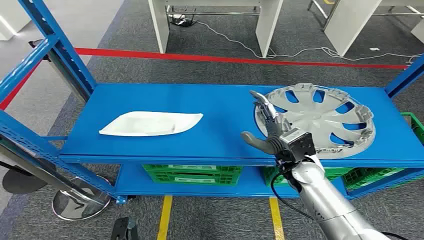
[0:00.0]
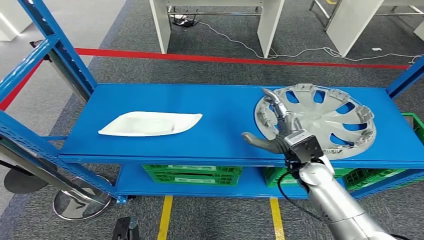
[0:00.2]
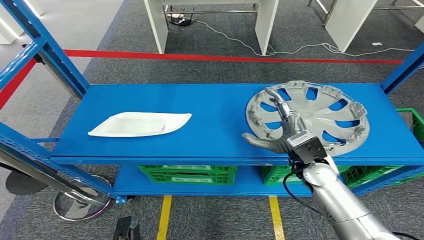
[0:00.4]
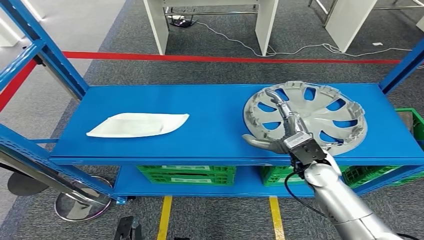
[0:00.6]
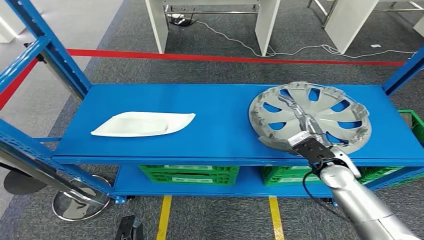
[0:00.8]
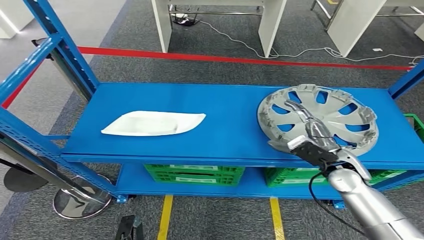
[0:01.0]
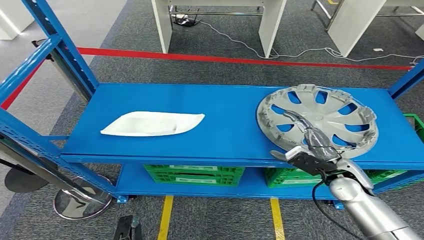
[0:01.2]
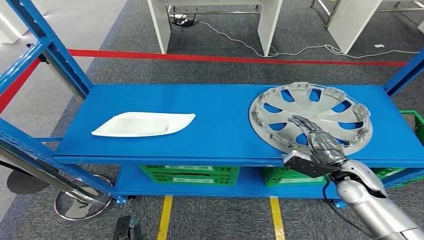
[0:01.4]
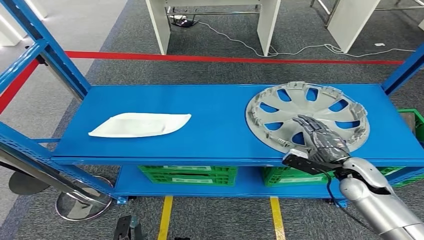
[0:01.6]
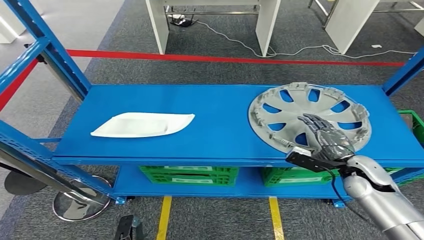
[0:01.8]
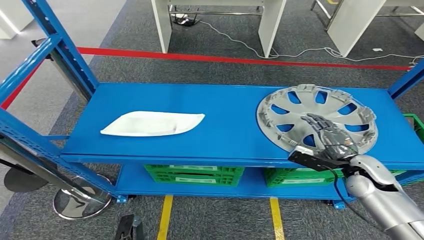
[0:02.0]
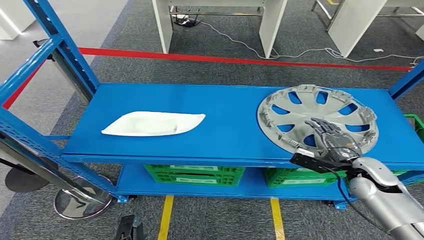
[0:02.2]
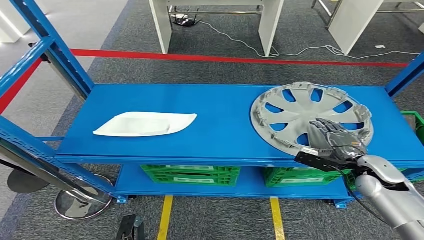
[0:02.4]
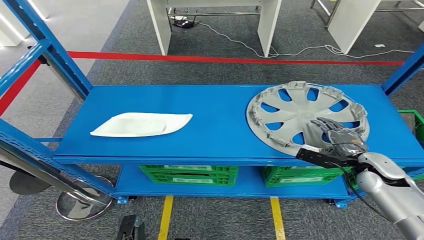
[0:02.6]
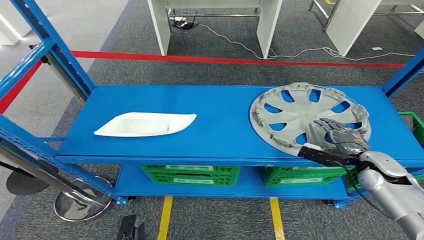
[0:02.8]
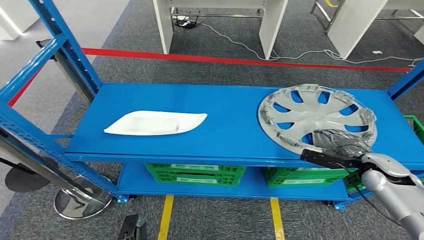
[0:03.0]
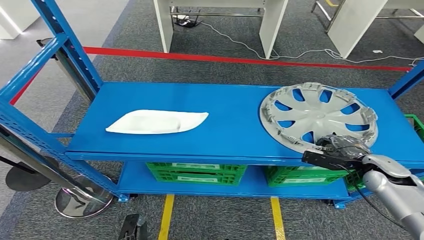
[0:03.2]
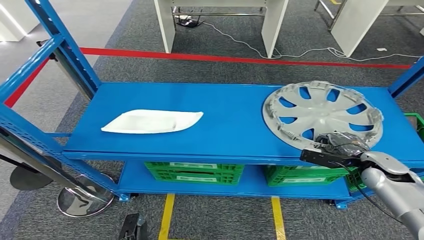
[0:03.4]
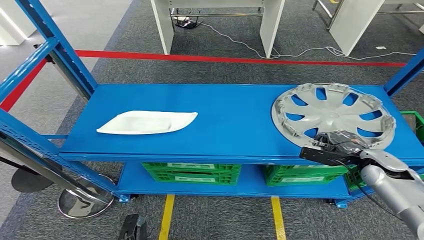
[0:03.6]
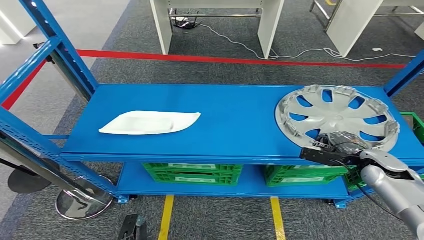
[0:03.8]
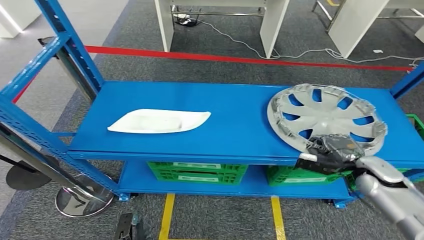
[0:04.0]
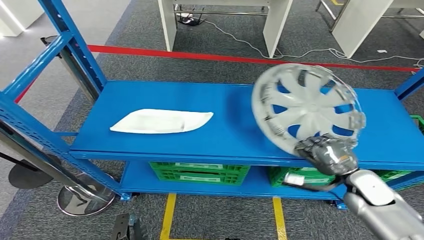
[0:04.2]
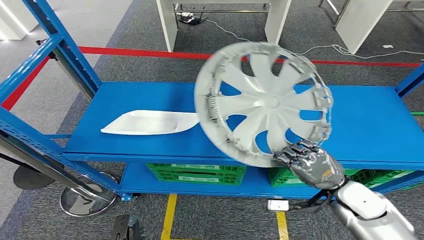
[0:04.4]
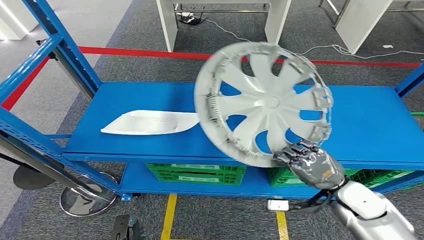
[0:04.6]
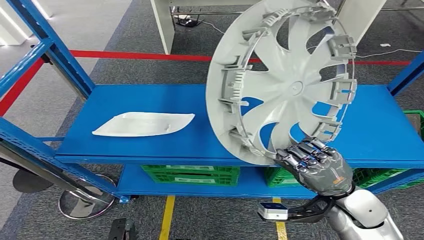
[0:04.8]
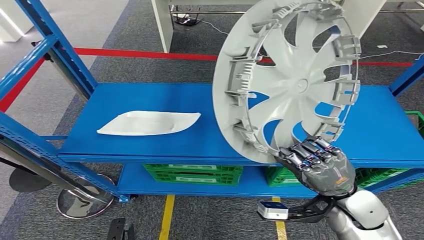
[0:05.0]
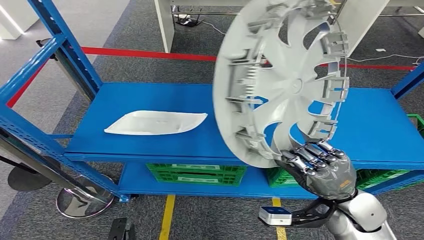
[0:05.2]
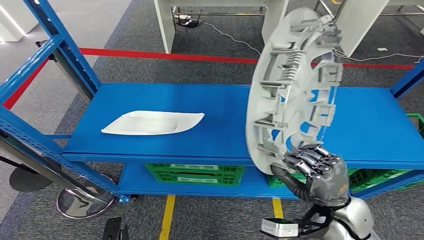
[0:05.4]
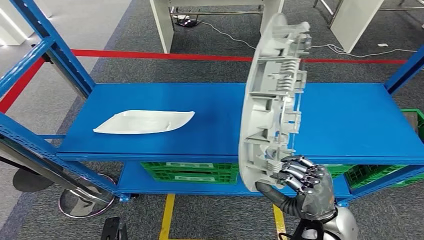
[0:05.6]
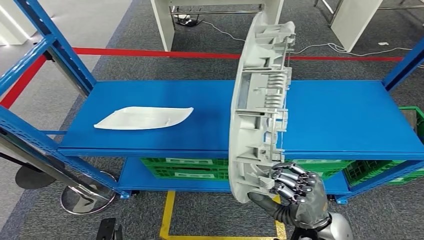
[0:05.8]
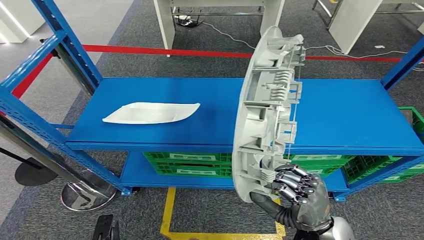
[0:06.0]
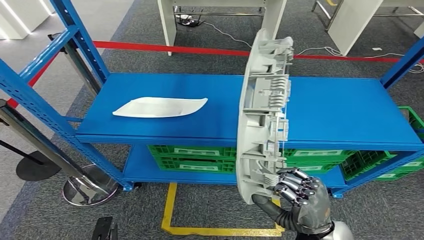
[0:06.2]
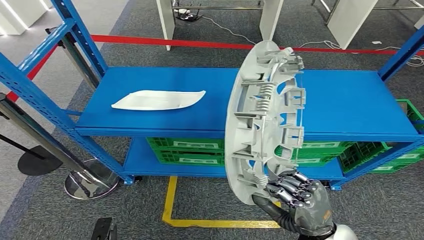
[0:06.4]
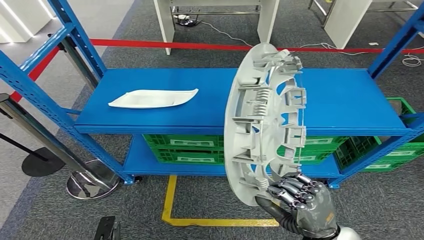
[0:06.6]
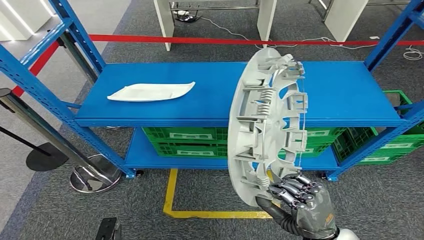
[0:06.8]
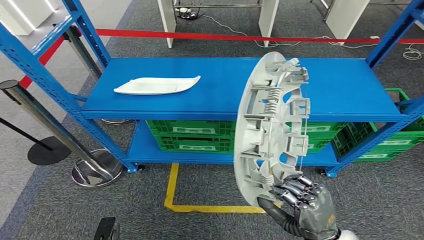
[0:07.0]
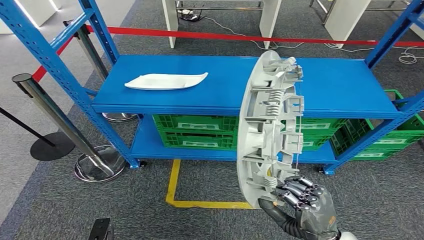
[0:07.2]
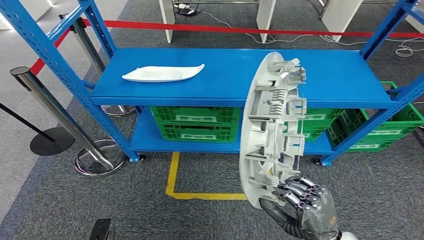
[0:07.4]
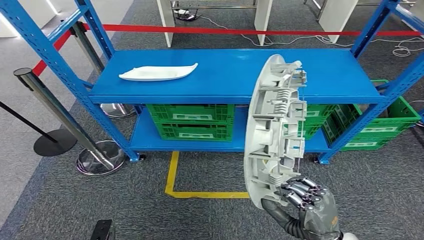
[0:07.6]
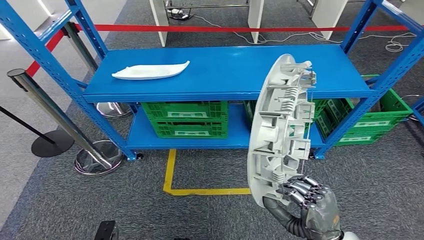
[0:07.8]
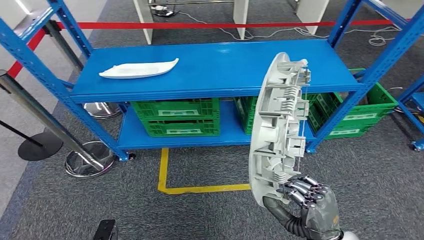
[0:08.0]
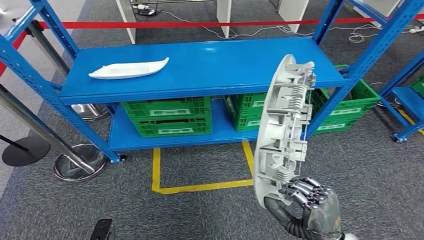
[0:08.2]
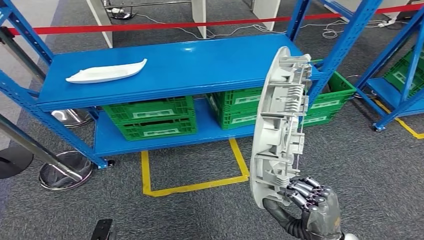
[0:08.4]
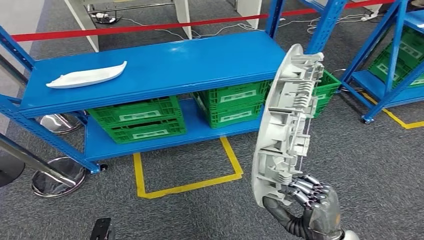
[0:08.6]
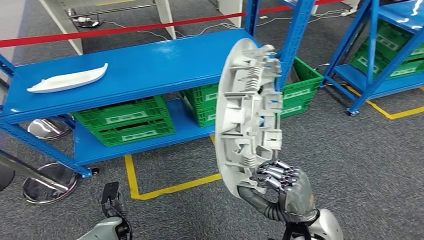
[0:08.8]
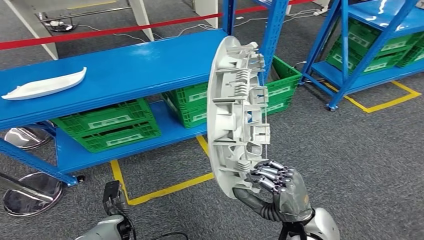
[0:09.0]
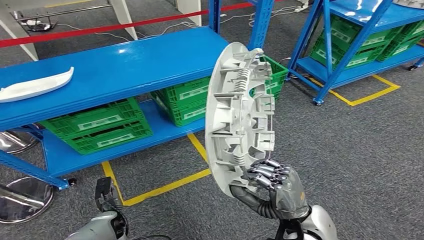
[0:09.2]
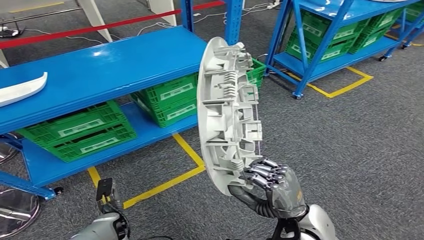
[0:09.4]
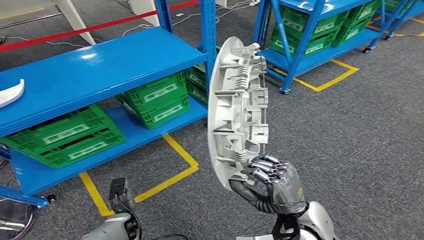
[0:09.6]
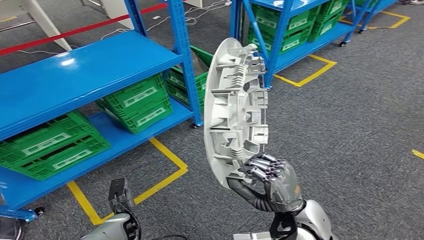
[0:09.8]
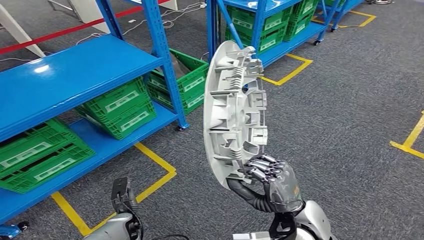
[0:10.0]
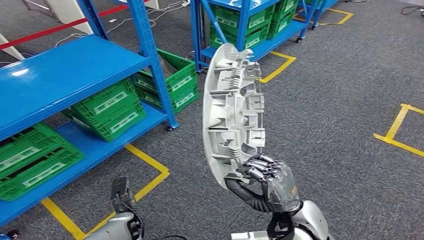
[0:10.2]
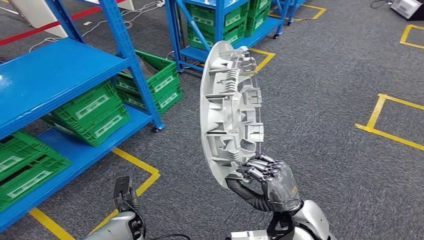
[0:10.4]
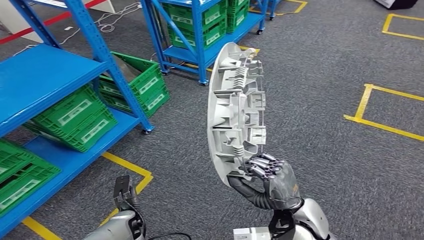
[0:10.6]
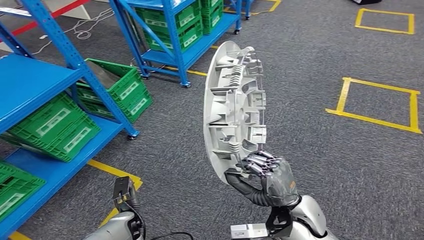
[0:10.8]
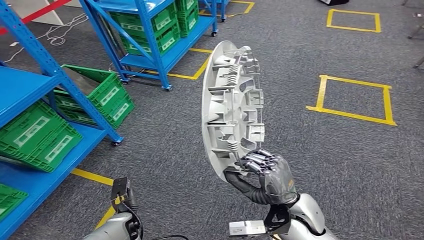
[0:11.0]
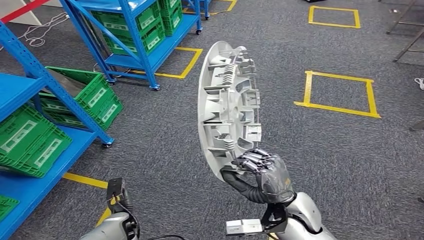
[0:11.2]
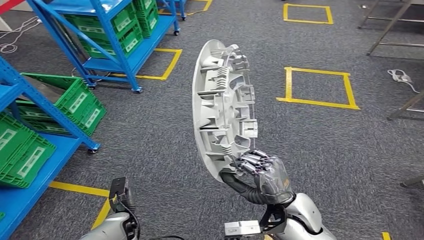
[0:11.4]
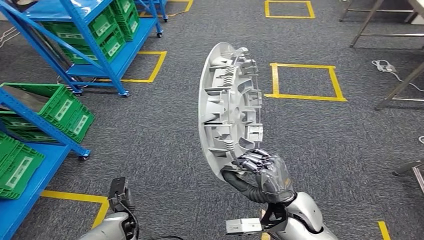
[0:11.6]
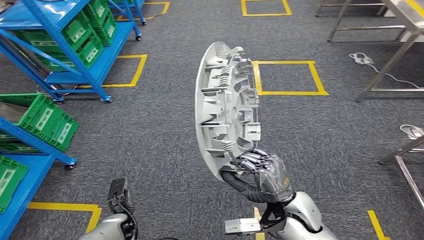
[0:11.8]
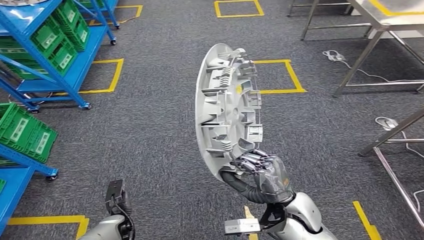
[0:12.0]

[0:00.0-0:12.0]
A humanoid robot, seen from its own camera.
Step, 0:00.0 to 0:05.0: Pick up the small component from the shelf.

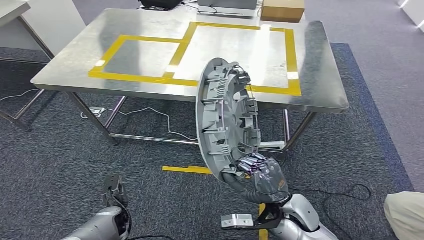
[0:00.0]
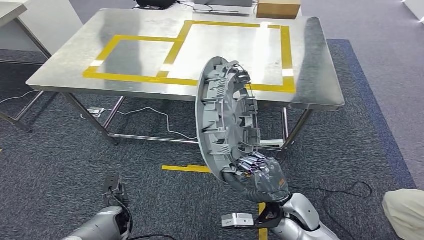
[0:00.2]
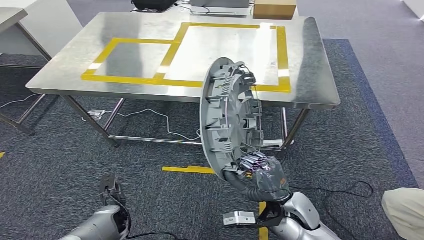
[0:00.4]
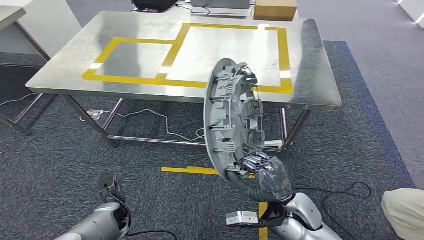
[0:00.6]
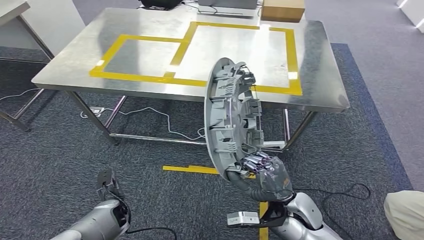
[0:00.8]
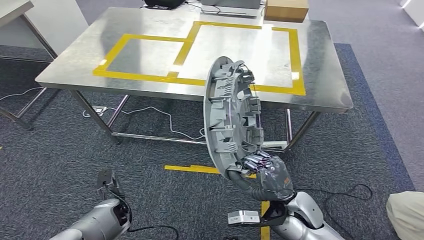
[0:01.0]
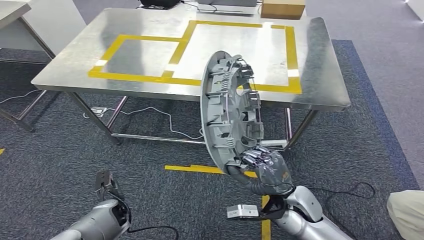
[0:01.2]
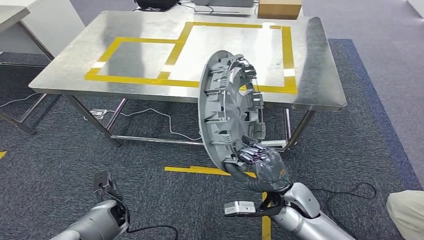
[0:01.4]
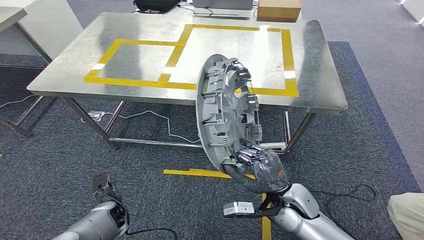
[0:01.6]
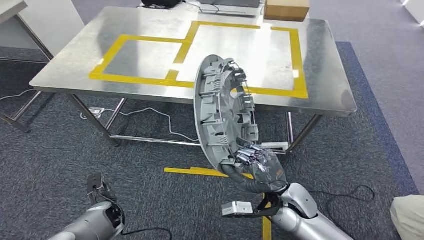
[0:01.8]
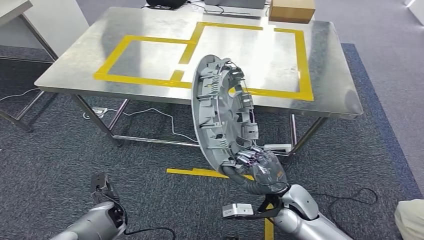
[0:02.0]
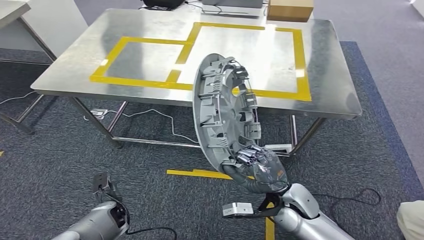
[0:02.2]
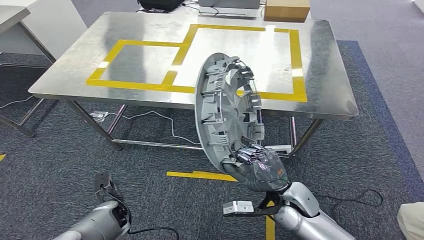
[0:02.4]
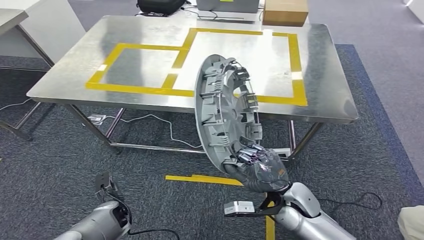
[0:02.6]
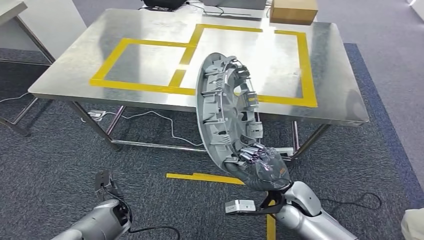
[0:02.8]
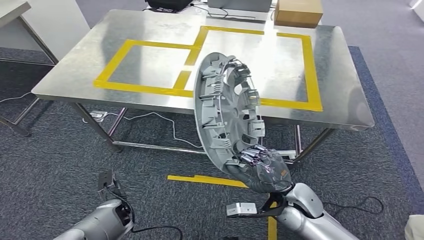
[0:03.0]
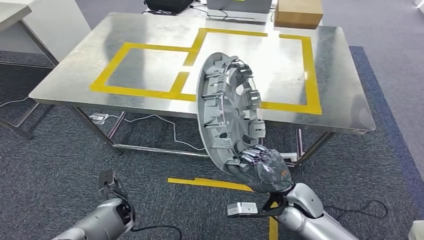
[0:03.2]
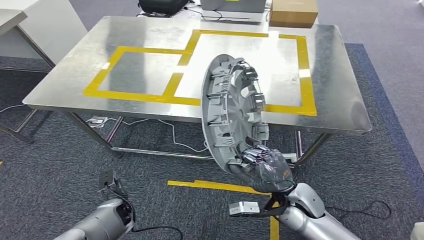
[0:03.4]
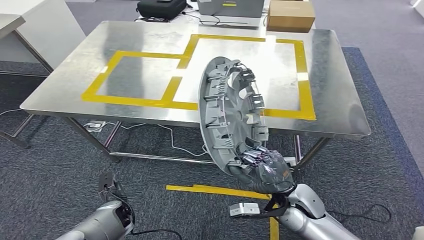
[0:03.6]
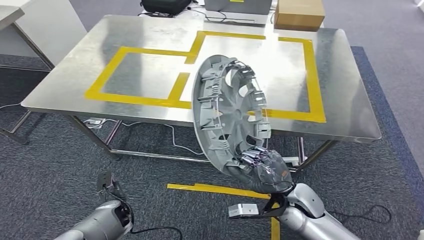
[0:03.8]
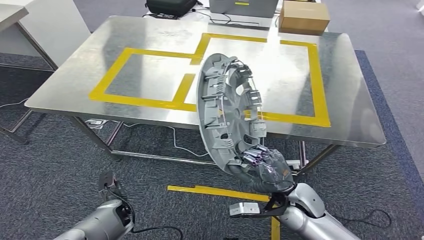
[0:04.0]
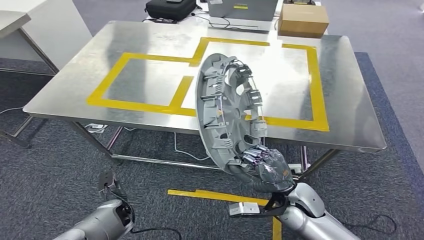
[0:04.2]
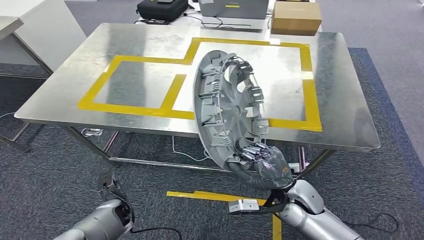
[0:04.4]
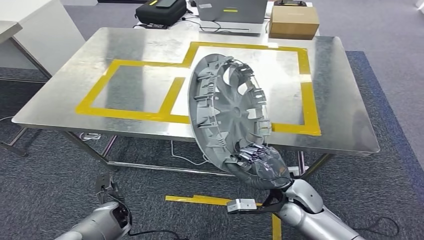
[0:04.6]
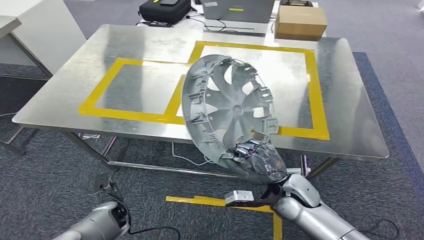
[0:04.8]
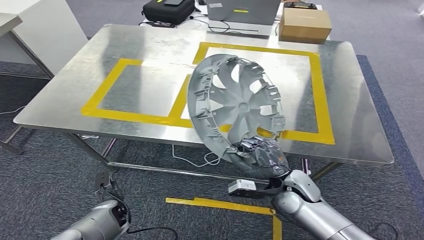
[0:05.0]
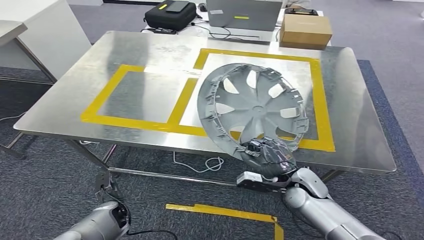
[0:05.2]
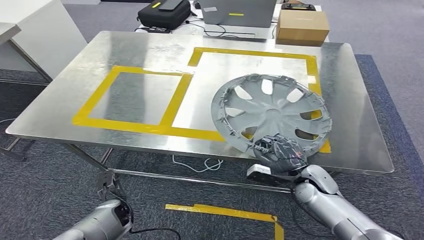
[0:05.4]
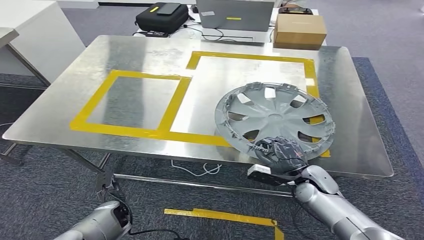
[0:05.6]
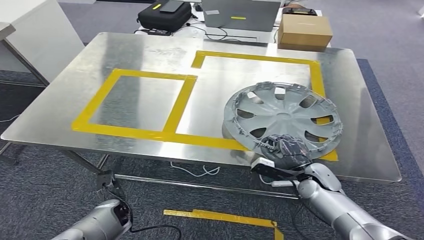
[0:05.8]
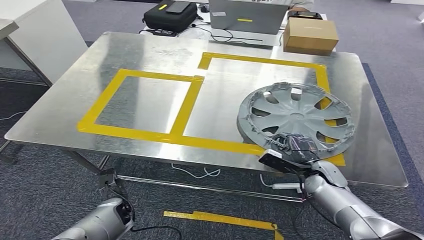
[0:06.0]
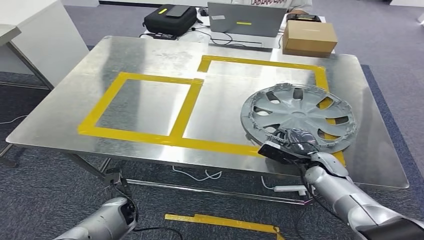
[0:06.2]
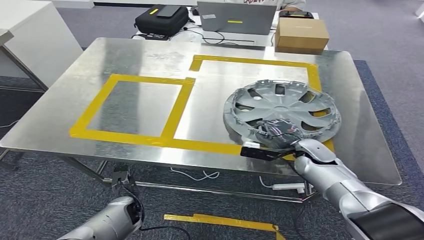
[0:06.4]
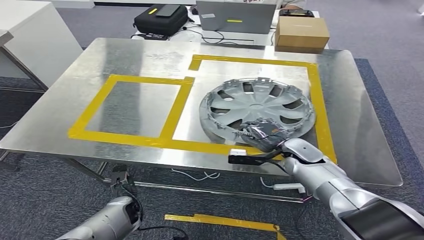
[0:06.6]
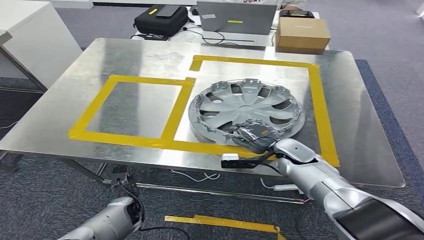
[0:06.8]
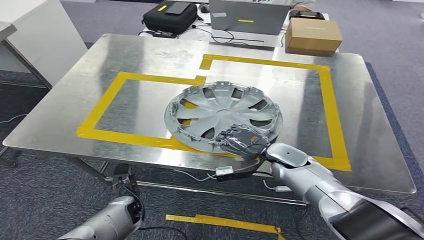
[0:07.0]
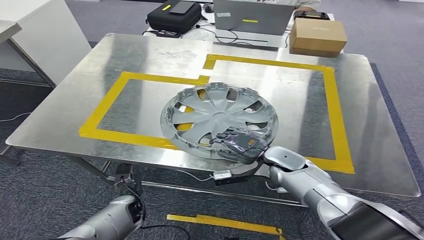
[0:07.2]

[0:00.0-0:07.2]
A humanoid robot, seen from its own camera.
Step, 0:00.0 to 0:03.2: Move the small component to the workbench.
